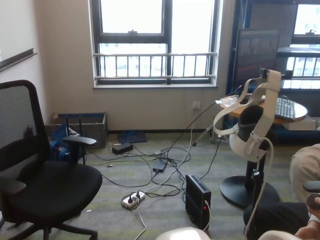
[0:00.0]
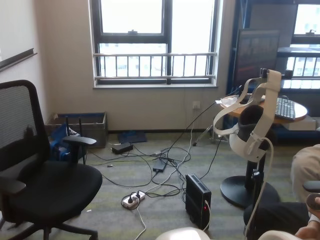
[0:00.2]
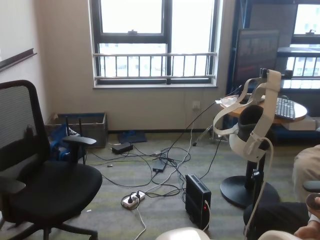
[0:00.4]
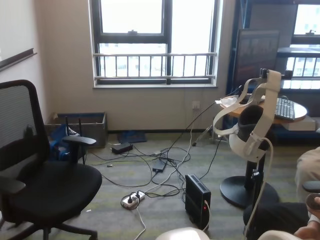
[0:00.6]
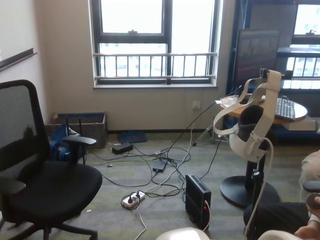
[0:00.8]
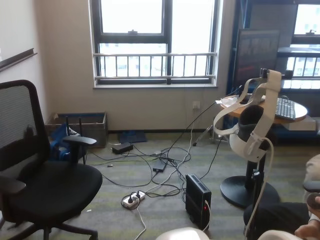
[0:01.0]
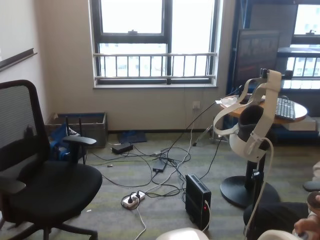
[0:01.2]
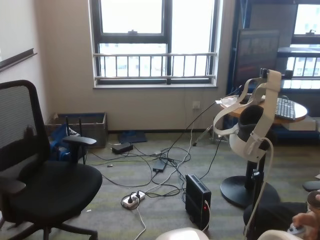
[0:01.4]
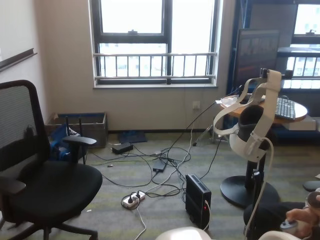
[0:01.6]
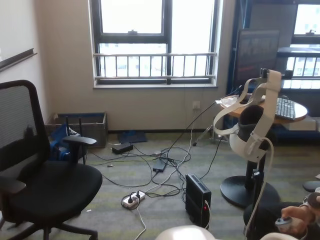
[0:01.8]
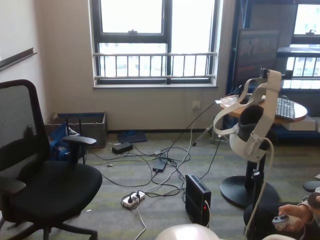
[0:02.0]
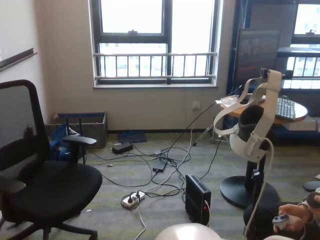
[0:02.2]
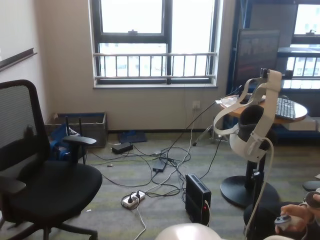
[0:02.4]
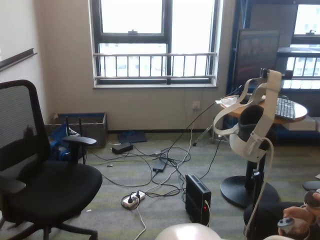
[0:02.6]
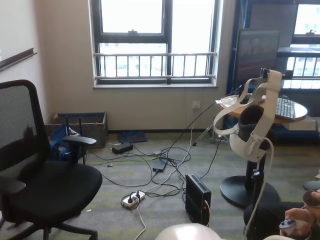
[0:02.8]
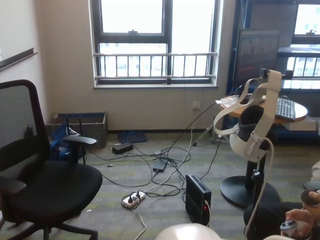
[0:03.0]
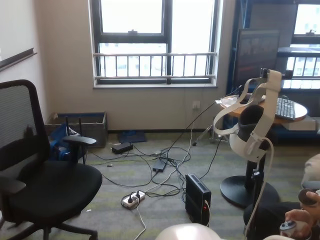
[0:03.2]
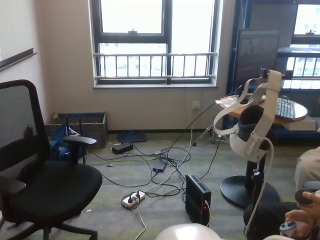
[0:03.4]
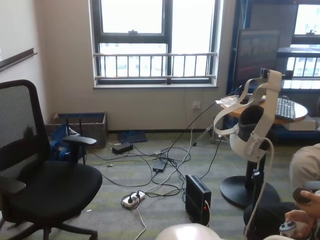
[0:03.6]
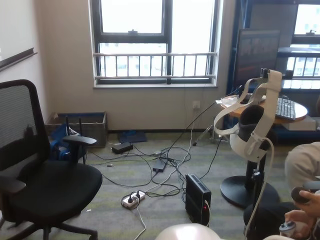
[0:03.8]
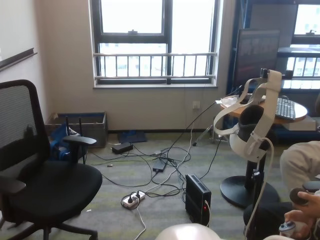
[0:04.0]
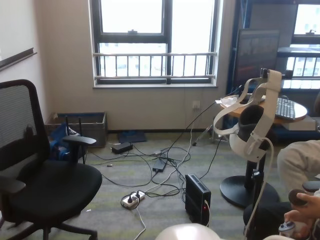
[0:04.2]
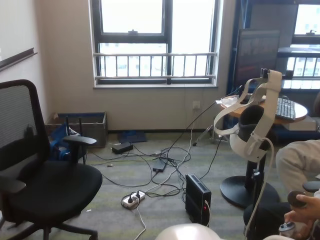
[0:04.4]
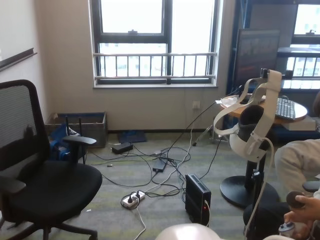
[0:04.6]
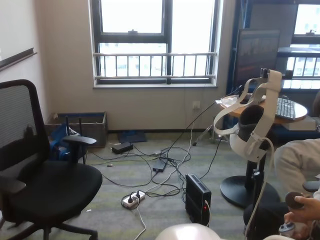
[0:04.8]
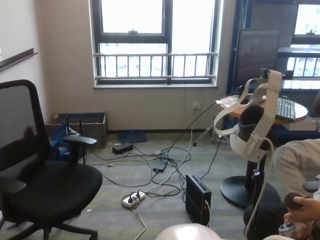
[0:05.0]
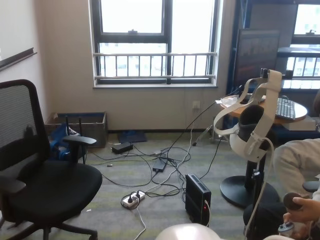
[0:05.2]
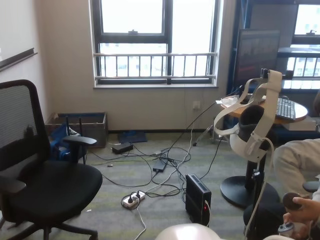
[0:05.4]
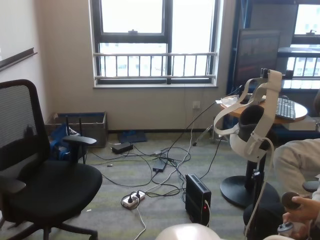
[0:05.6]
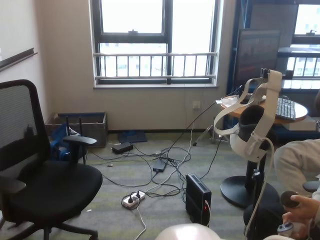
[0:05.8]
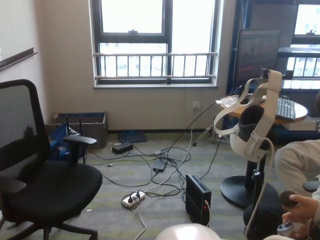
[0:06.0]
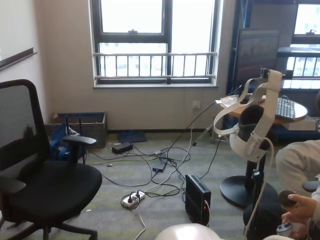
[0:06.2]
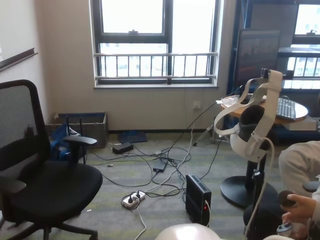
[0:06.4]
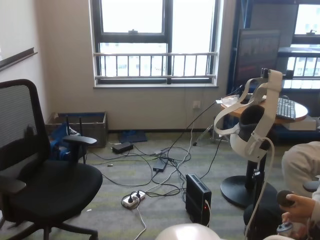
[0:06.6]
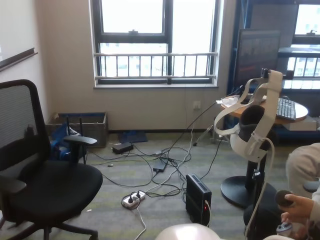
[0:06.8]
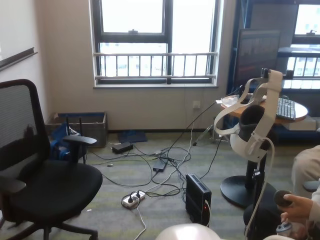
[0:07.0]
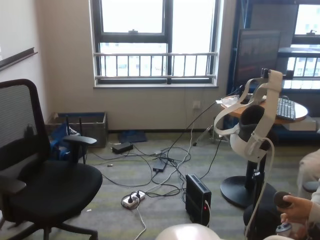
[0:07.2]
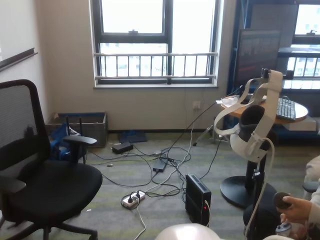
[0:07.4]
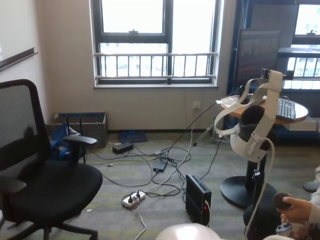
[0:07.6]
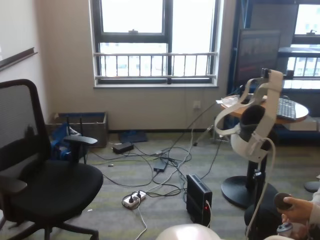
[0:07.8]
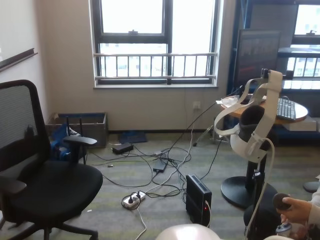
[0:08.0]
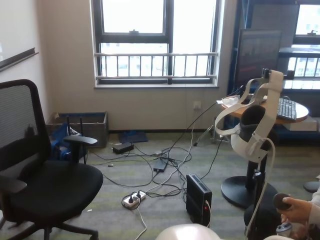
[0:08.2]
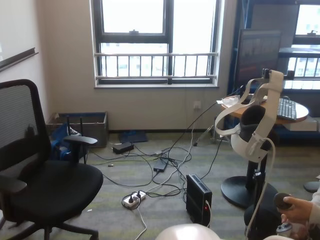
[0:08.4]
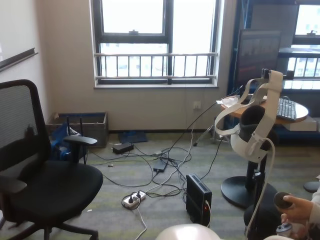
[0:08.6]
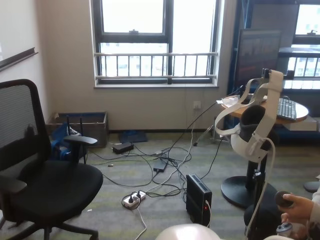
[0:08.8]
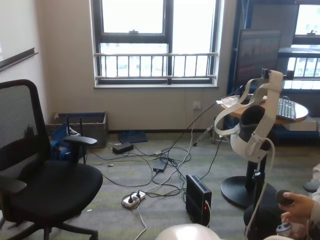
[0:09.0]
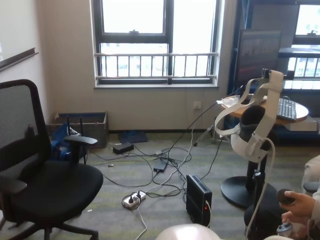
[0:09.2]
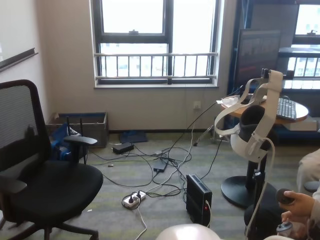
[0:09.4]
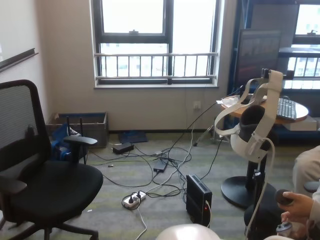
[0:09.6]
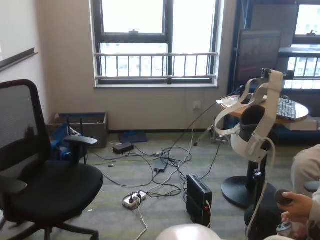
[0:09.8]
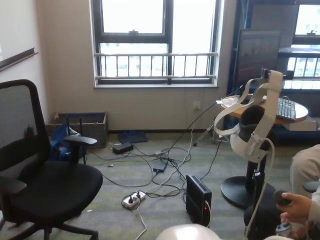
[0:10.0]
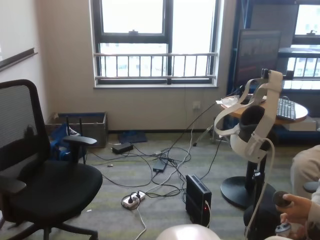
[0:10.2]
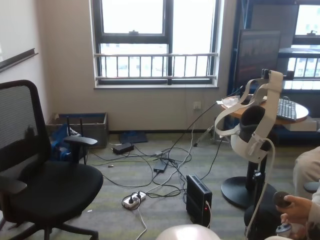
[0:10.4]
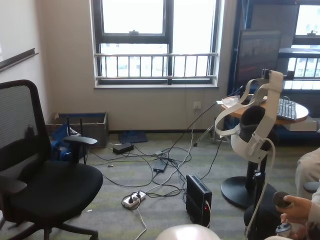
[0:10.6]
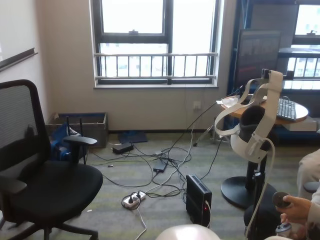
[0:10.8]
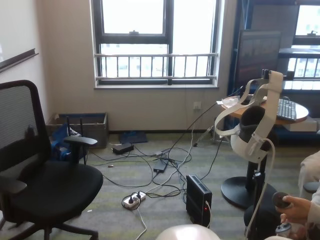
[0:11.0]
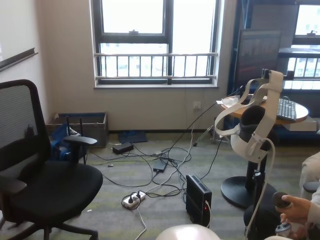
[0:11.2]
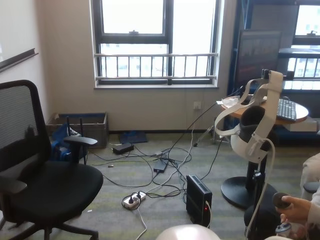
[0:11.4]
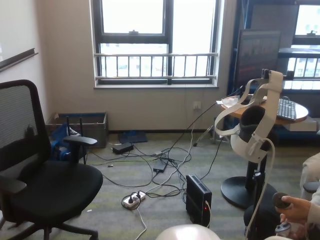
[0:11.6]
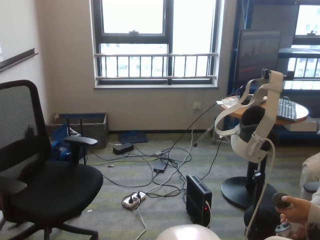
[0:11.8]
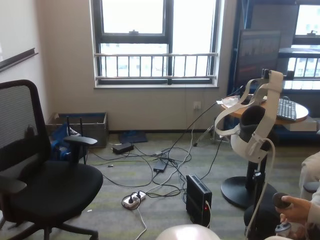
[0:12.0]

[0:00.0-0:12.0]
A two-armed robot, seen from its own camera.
Task of the whole recording: stack building blocks on the table.
Step, 0:01.0 to 0:11.6: Grasp the blue building block with left gripper.

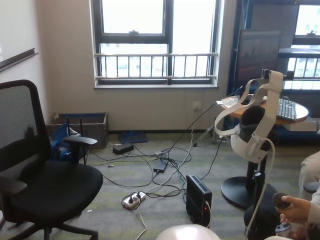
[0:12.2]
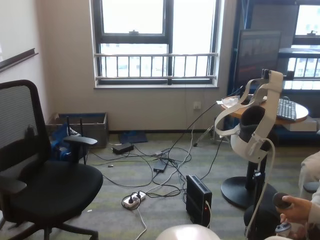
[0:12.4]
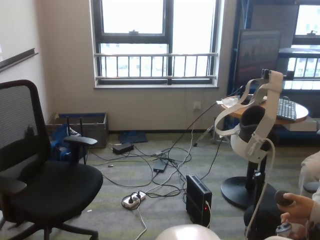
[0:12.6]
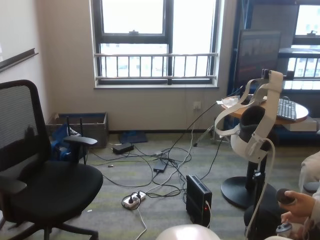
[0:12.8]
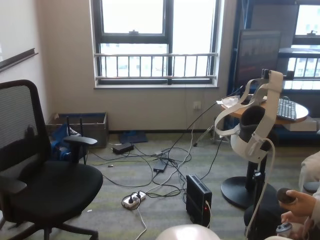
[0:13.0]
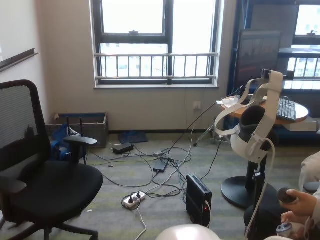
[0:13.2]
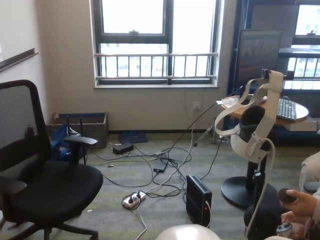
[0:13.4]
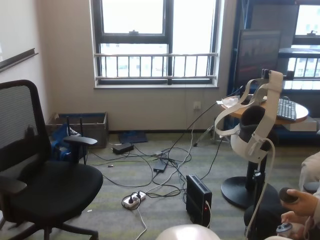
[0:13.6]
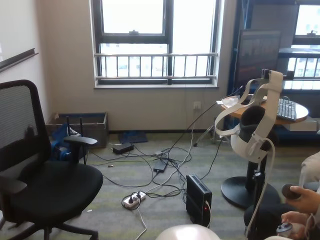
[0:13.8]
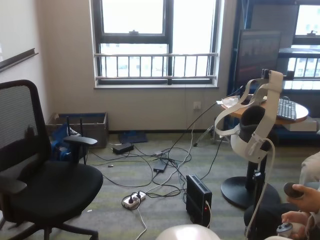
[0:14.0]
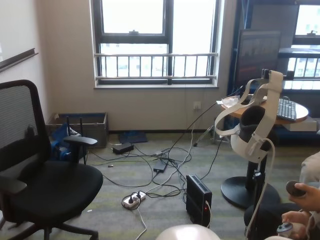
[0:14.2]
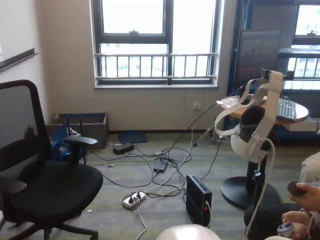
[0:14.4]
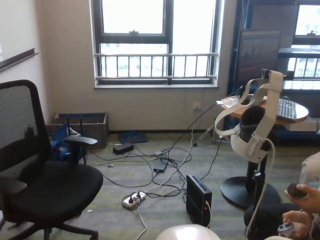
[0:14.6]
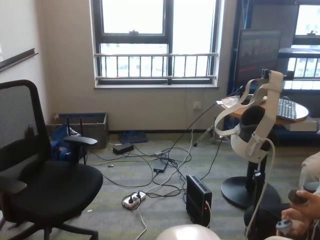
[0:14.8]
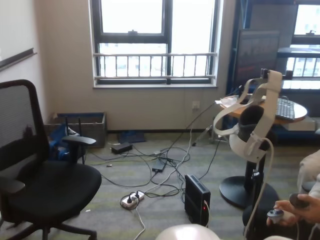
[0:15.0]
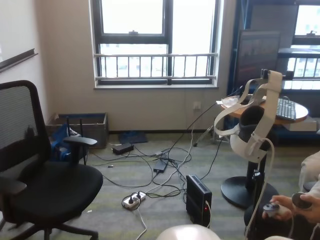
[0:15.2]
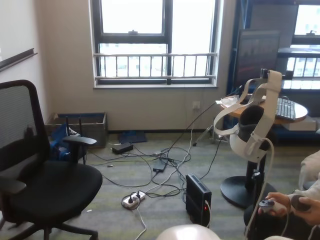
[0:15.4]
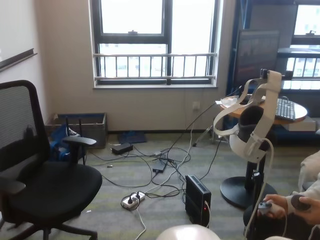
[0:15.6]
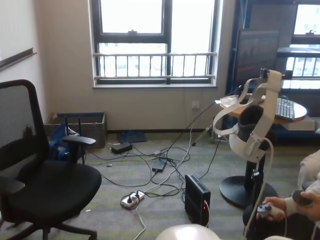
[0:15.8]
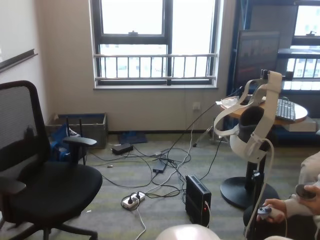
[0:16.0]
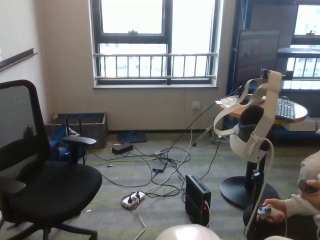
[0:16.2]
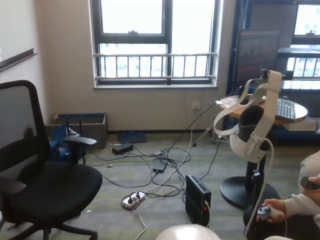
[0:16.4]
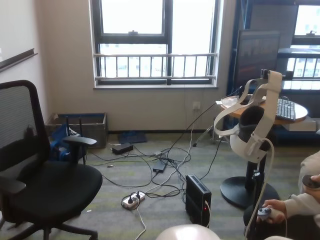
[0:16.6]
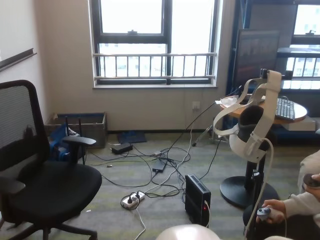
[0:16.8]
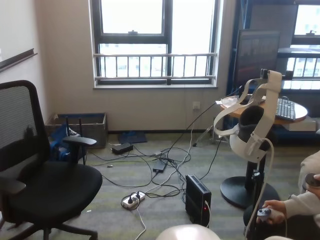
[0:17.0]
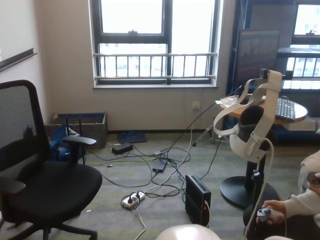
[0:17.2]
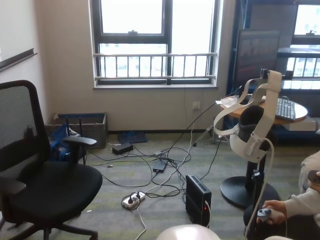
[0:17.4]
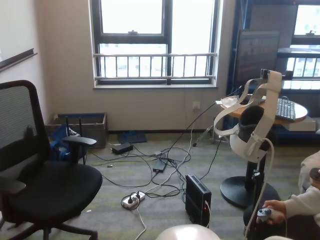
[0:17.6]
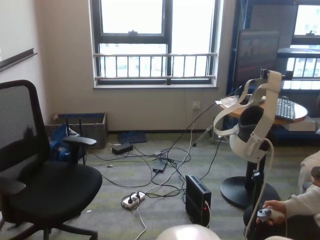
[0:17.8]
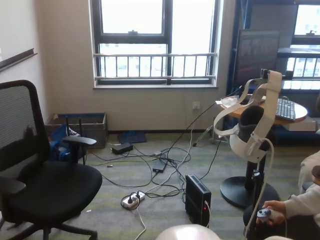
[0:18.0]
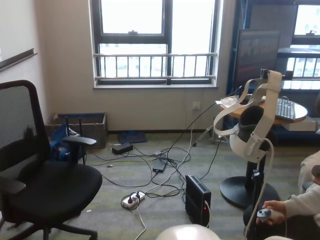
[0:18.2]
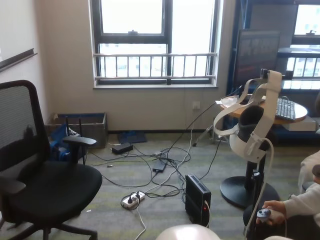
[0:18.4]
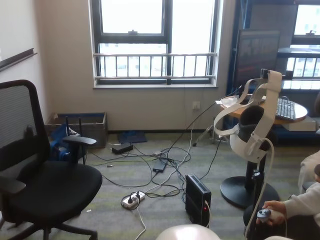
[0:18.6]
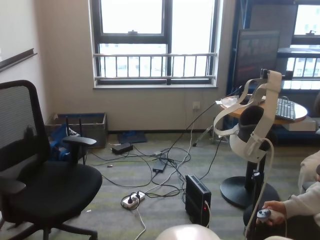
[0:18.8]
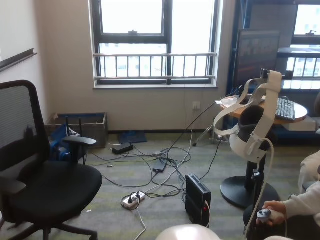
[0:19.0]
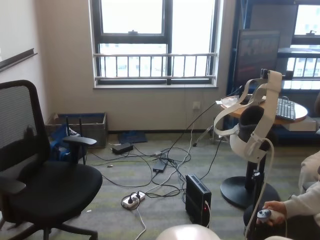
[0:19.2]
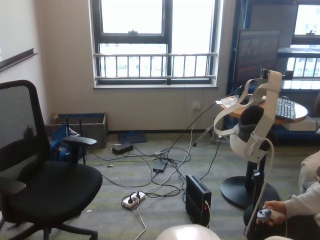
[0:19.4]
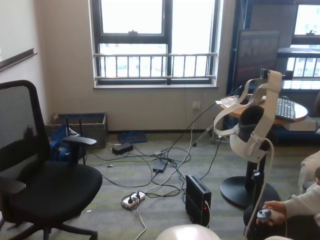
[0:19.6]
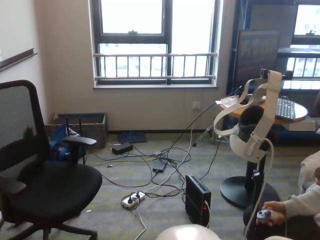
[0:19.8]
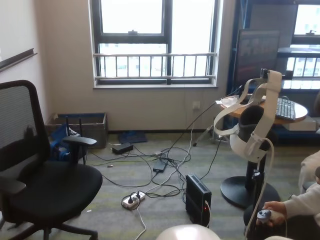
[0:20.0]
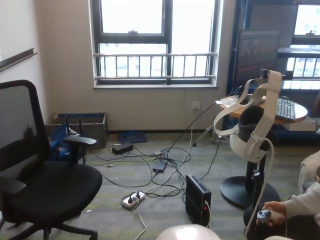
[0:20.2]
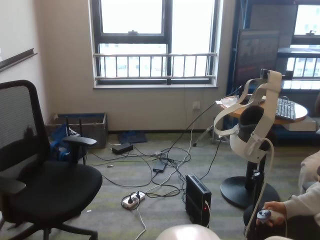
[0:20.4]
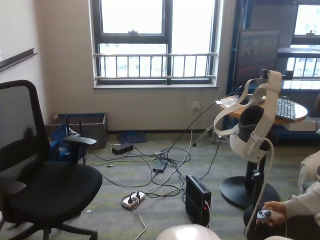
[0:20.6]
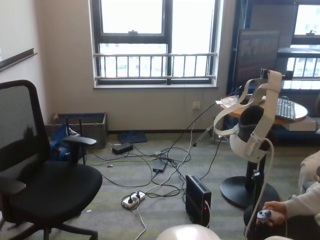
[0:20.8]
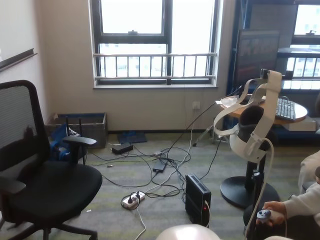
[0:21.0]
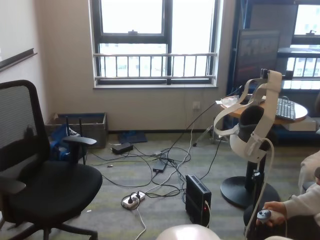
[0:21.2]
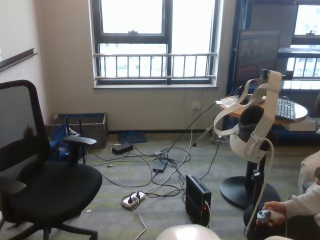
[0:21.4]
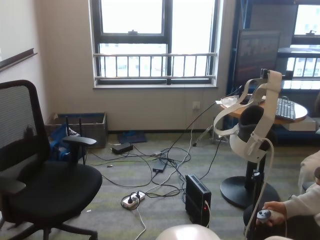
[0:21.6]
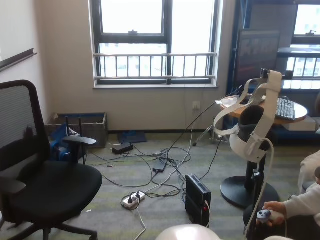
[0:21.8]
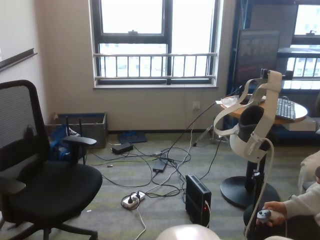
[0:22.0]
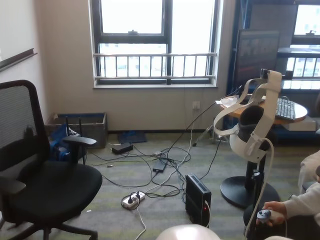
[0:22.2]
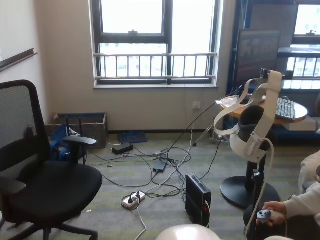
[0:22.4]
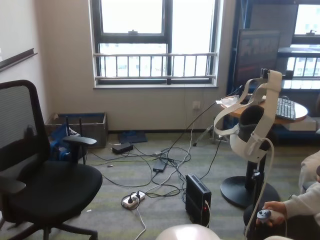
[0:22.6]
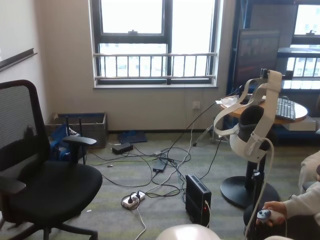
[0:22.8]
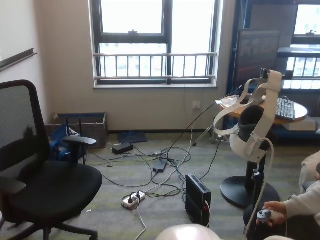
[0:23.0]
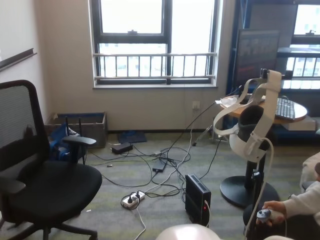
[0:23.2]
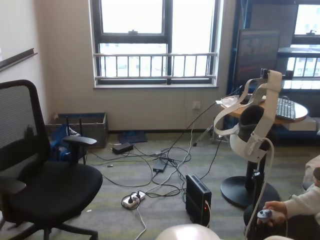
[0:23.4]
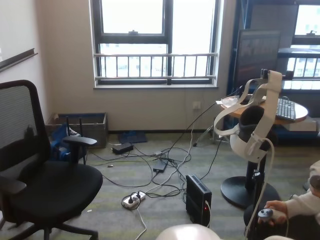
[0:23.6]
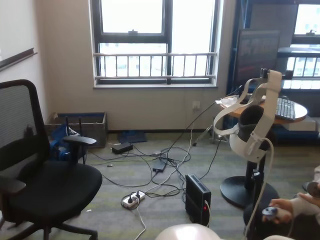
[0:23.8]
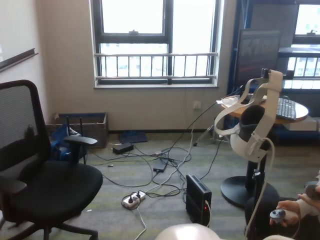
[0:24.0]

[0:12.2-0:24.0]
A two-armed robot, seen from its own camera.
Task of the whole recording: stack building blocks on the table.
Step, 0:12.2 to 0:22.4: Place the blue building block on the blue building blocks with left gripper.
